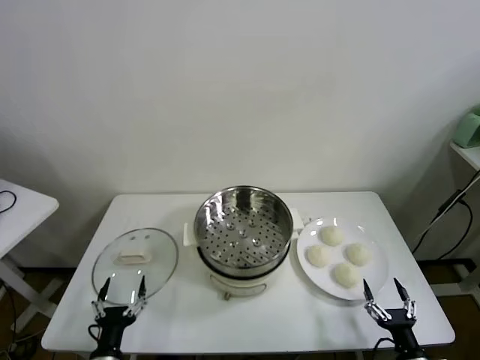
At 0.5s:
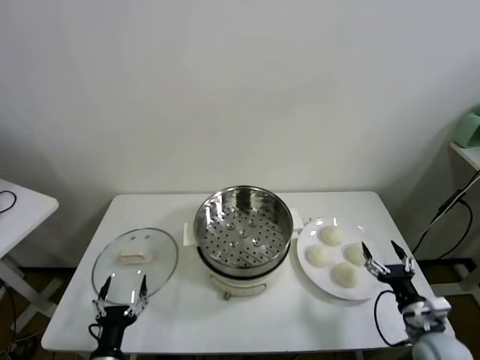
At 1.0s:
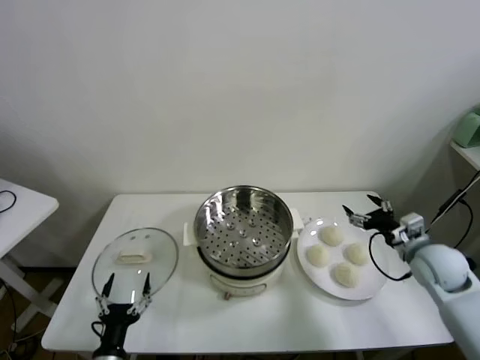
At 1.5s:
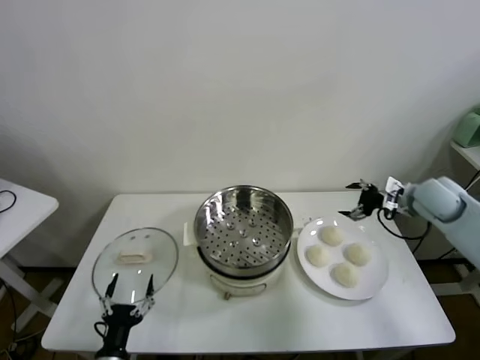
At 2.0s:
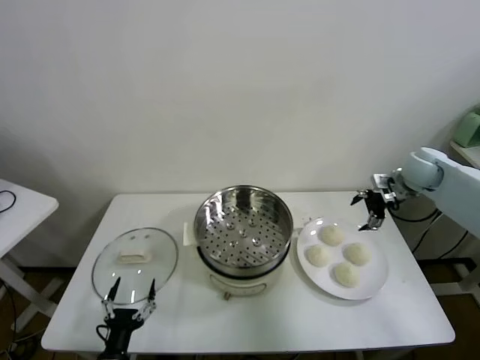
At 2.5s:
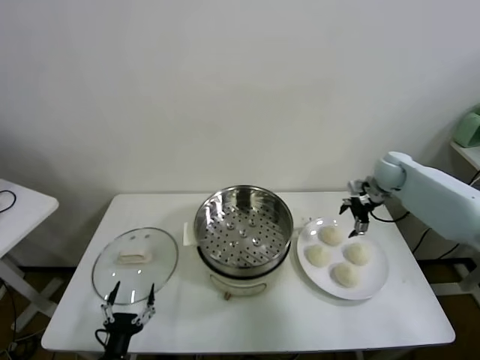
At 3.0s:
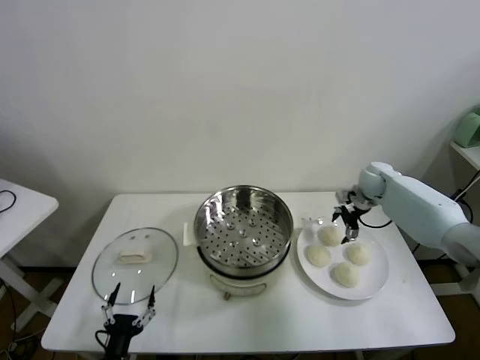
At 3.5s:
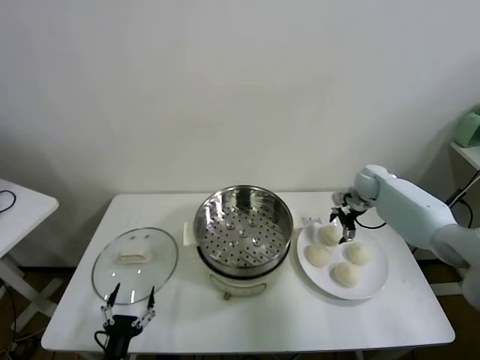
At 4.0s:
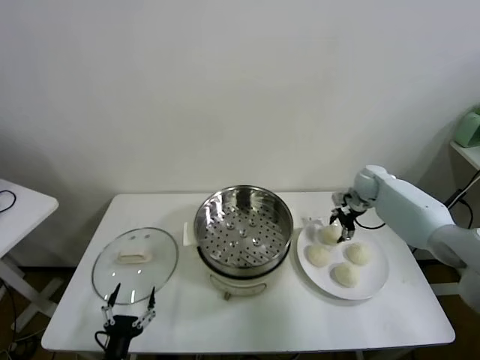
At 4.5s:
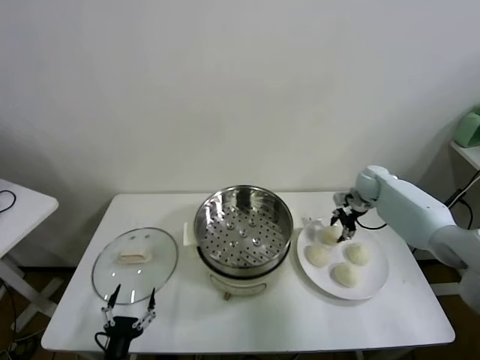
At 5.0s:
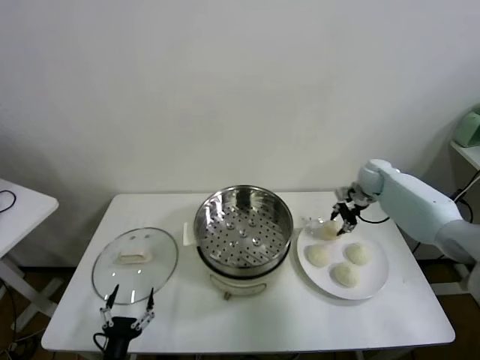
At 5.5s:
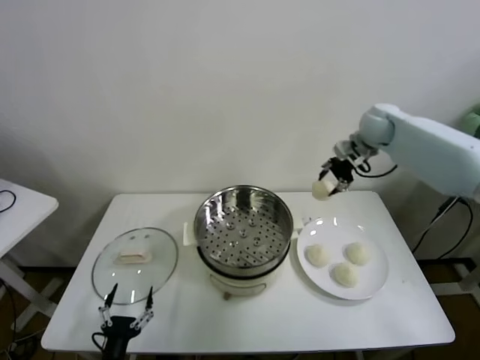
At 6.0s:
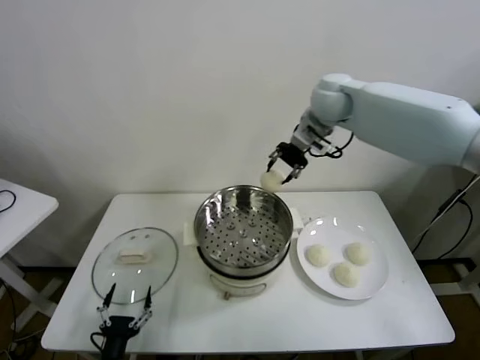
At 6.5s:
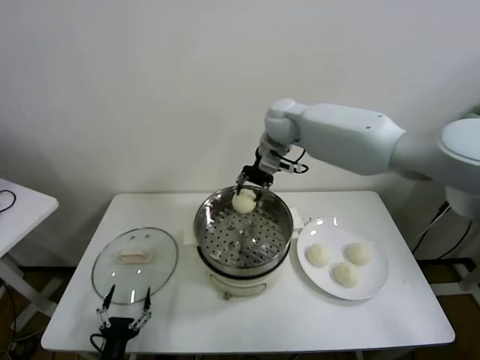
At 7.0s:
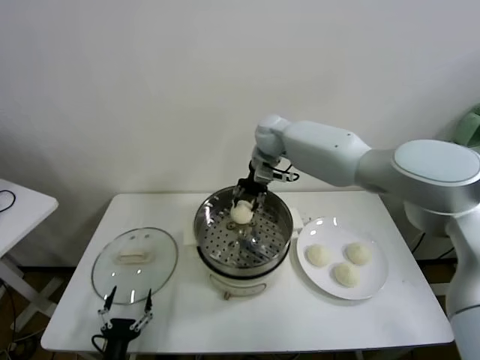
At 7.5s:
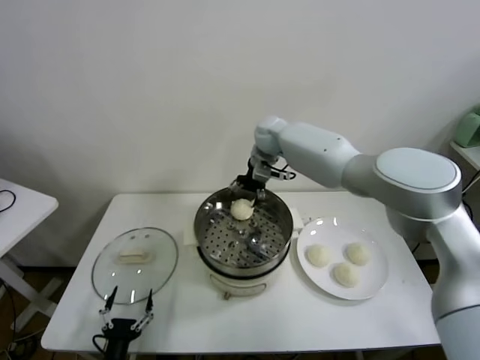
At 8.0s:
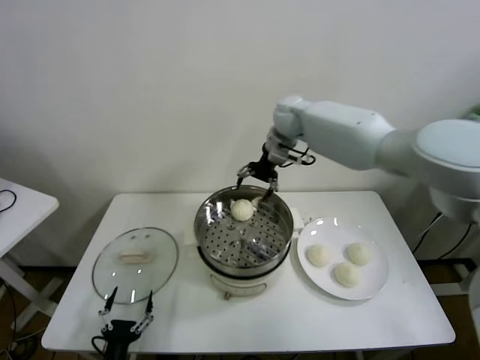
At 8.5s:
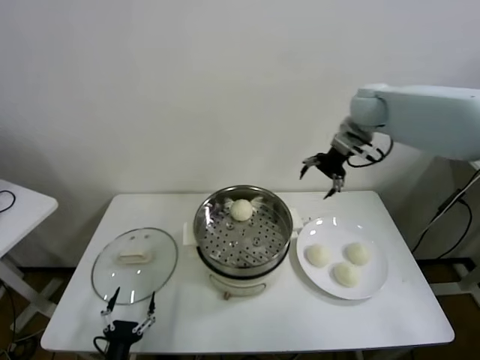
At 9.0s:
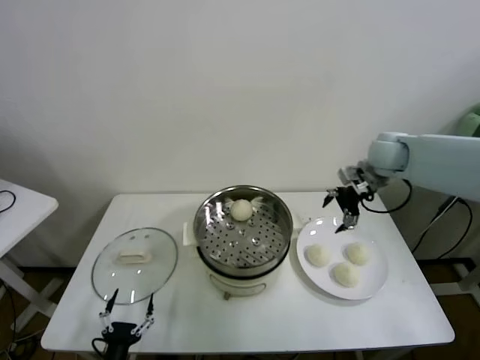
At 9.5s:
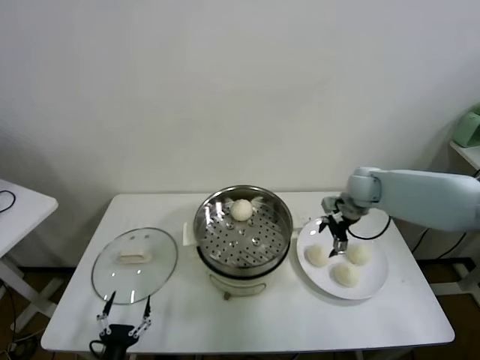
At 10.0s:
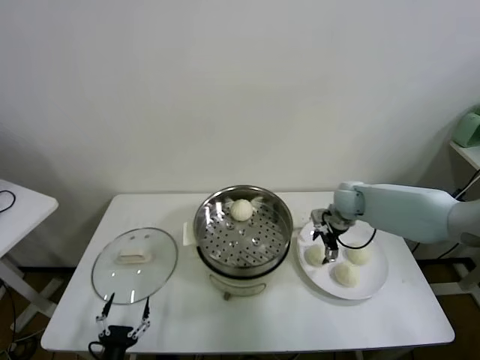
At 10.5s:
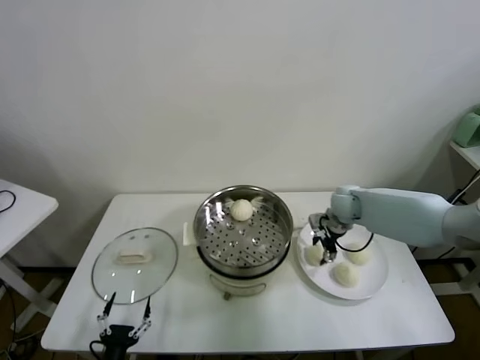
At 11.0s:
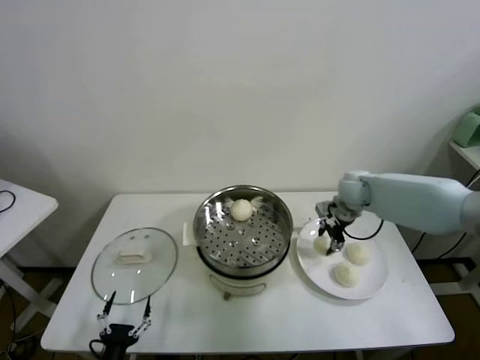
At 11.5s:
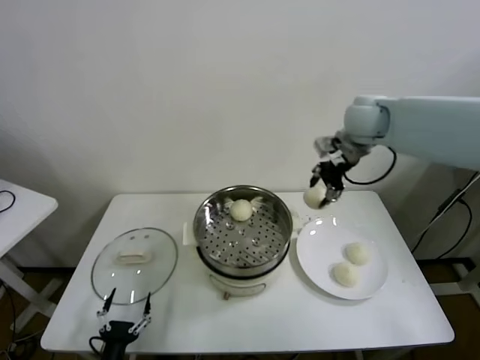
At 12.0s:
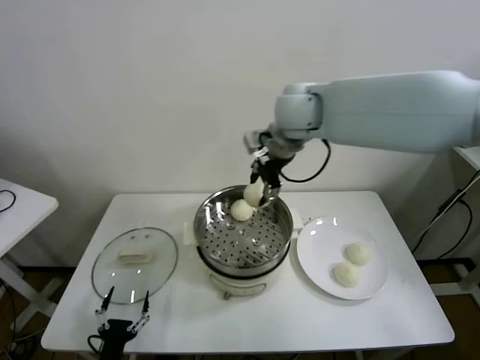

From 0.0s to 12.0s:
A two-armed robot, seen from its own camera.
Task of the whole recording: take steamed baozi put them in steamer.
Step, from 0.0s to 4.5s: Grasp the baozi in the plate with right gripper.
Step, from 5.0s to 7.5s: Place the baozi on the steamer with right gripper.
Step, from 8.0s to 10.5s: Grasp the baozi in the plate with right gripper.
From 2.0s to 4.0s: The right gripper goes roughly 15 cm downward, forward and to the left, and closes.
From 4.0s to 6.0s: The right gripper is displaced upward and to the left by approximately 35 cm, and closes its fingers.
From 6.0s to 8.0s: The right gripper travels forward by approximately 5 cm, and opens.
From 8.0s to 10.0s: The right gripper travels downward, to the right and backward by roughly 25 cm.
From 10.0s to 12.0s: The right gripper heads upward and to the left, covering approximately 35 cm, and closes its fingers.

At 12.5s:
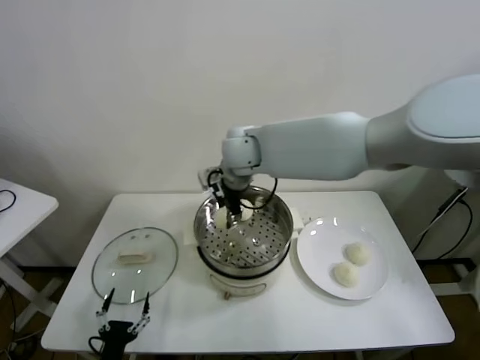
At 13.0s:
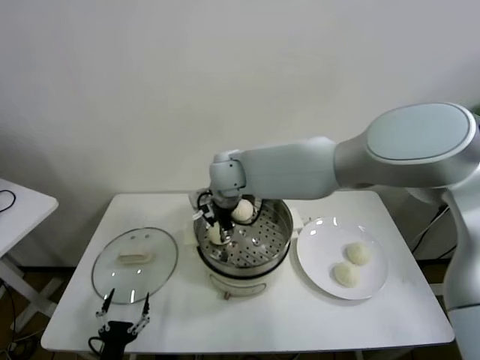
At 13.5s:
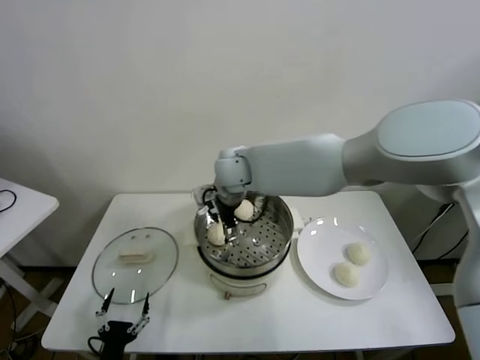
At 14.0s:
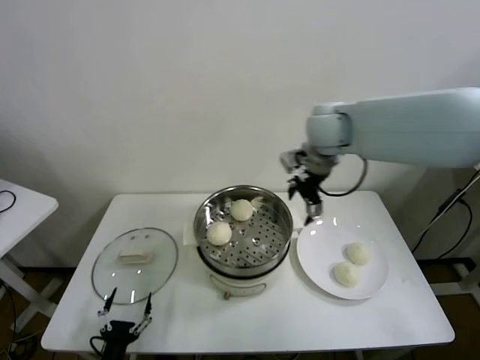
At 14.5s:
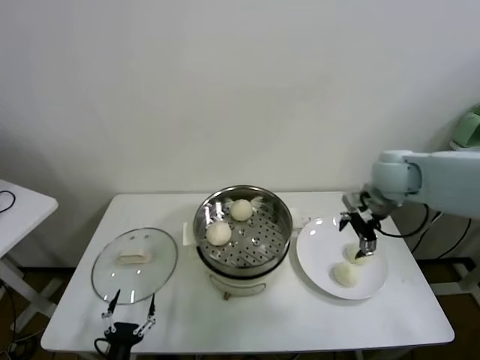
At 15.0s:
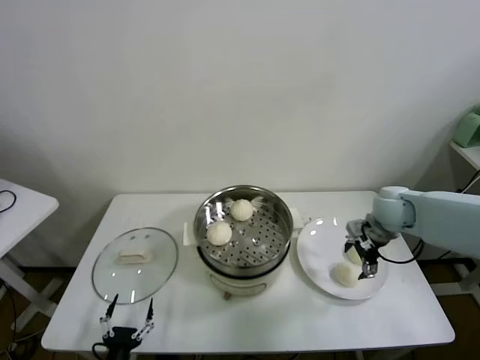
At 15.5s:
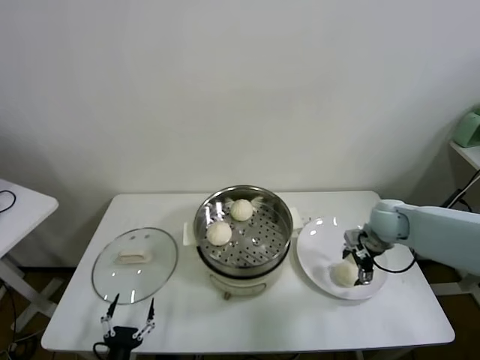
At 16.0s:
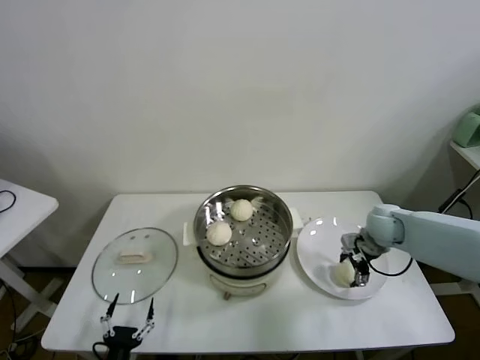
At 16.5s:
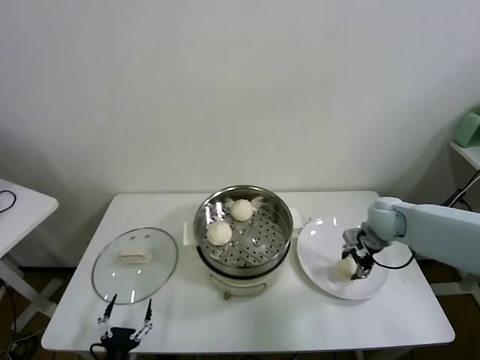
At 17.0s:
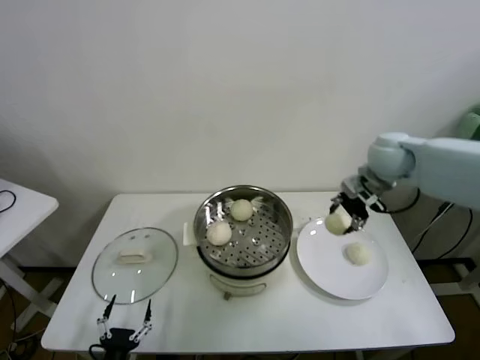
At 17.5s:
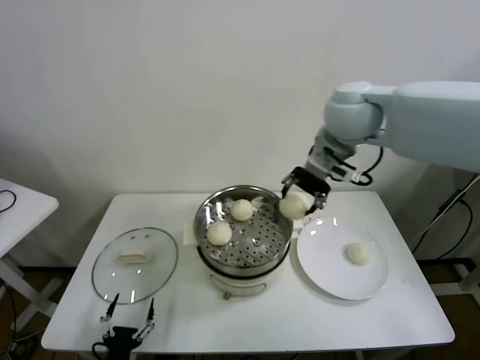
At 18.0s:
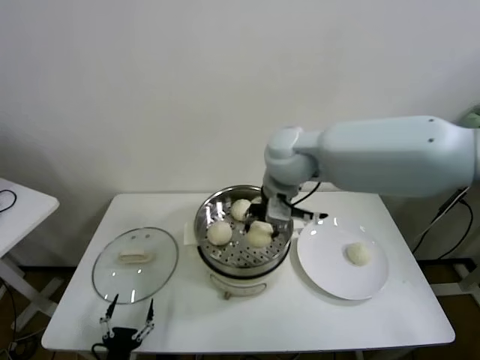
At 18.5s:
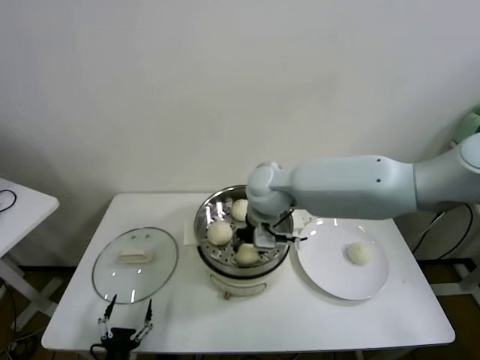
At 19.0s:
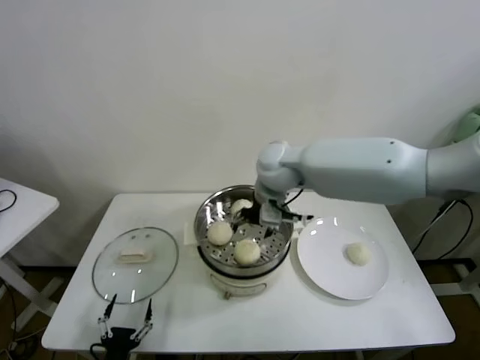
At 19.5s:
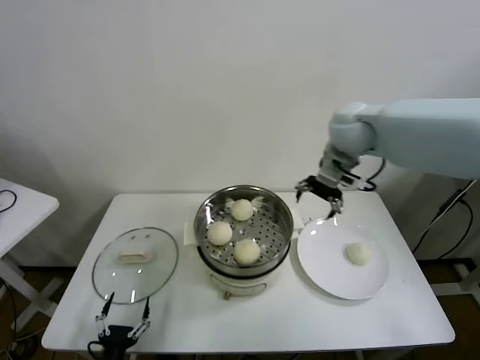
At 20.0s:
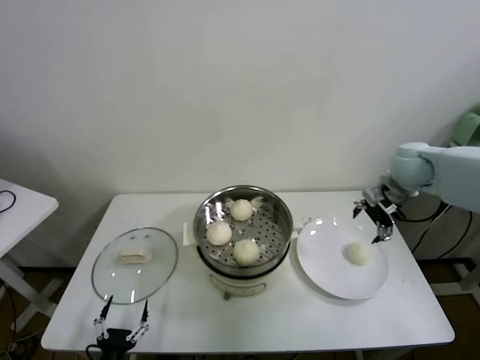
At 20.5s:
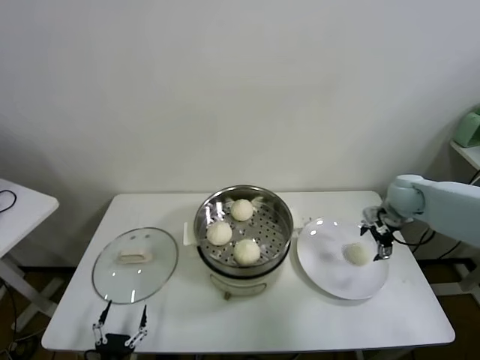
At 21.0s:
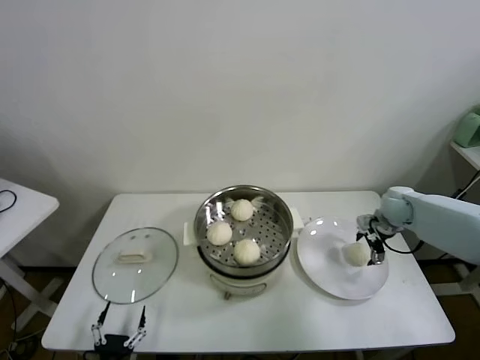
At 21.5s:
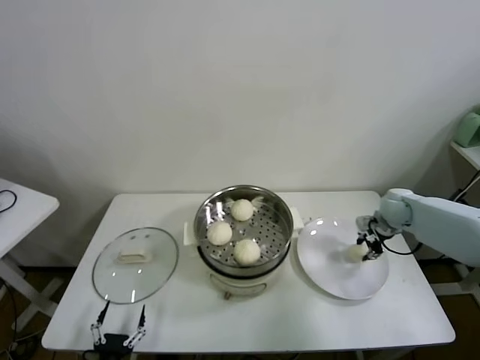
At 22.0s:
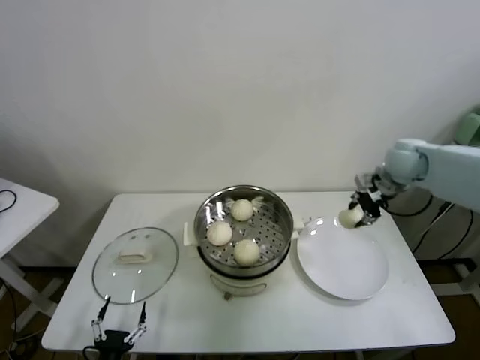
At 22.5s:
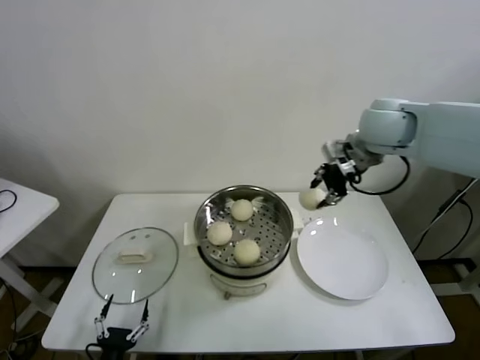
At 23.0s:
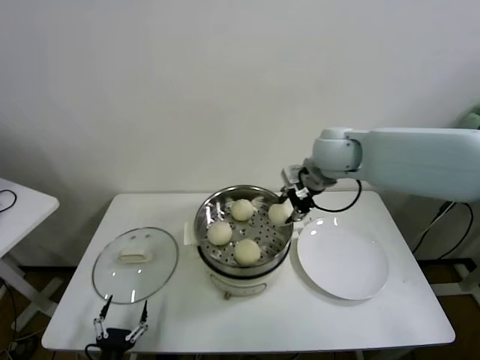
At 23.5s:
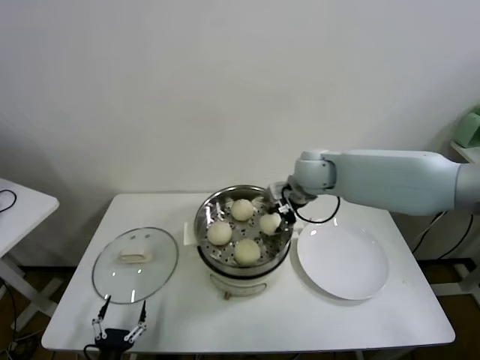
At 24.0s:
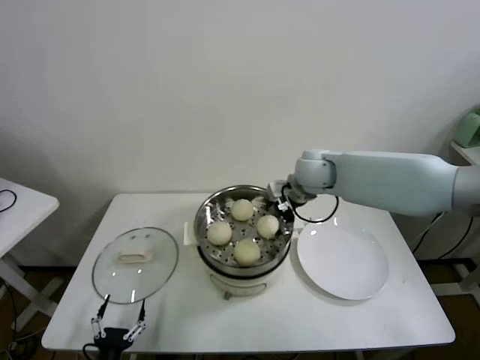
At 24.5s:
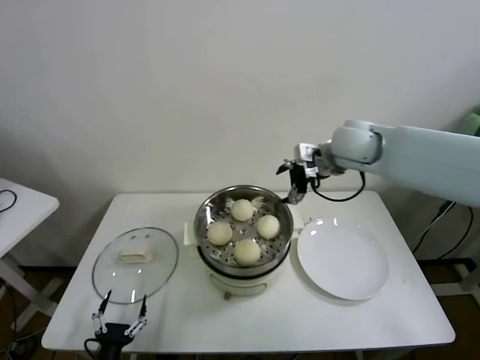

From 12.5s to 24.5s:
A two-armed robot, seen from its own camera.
Task of the whole recording: take steamed baozi put them in steamer.
Step, from 13.5s to 16.0s: Grasp the baozi in the plate with right gripper.
Step, from 16.5s to 18.5s: Place the baozi on the steamer with right gripper.
Step, from 19.0s to 21.0s: Grasp the baozi in the plate with right gripper.
Step, from 21.5s to 23.5s: Place the baozi on the steamer with right gripper.
From 12.5s to 14.5s: The right gripper is displaced to the right by about 35 cm, and opens up.
From 14.5s to 16.5s: The right gripper shifts roughly 15 cm downward, and closes up.
From 16.5s to 18.5s: The right gripper shifts about 30 cm to the left.
From 18.5s to 20.5s: The right gripper goes about 35 cm to the right, and opens.
From 20.5s to 22.5s: The right gripper moves upward and to the left, approximately 25 cm, and closes up.
From 22.5s to 24.5s: The right gripper is displaced downward by roughly 5 cm, and opens up.

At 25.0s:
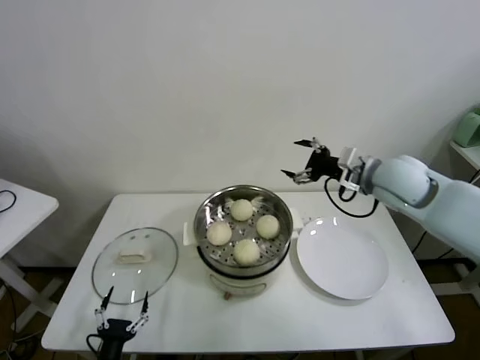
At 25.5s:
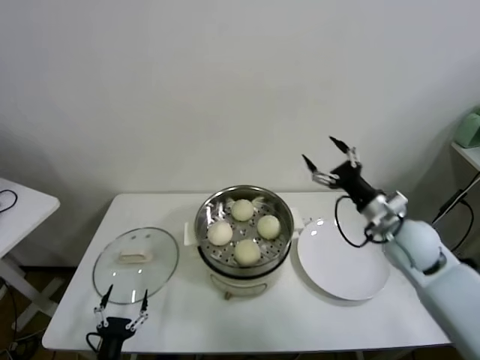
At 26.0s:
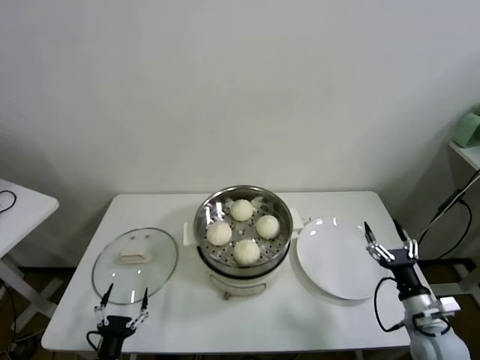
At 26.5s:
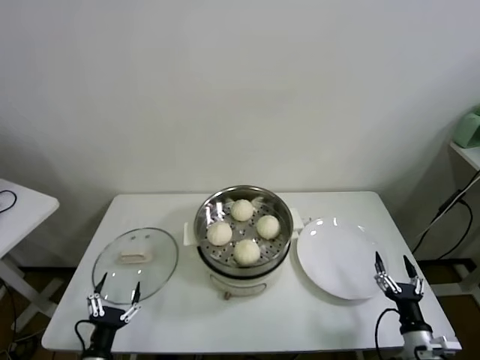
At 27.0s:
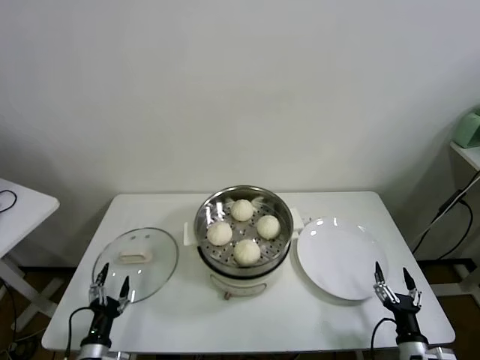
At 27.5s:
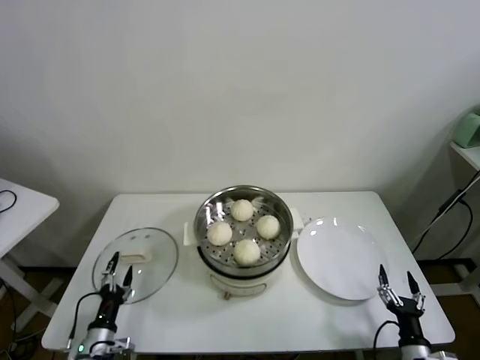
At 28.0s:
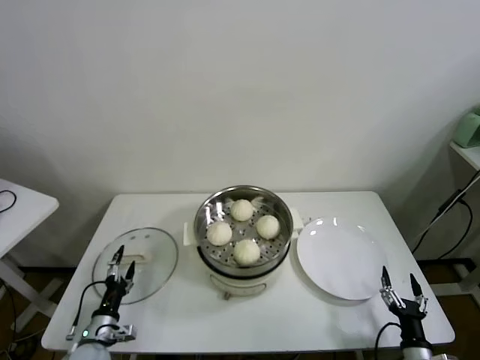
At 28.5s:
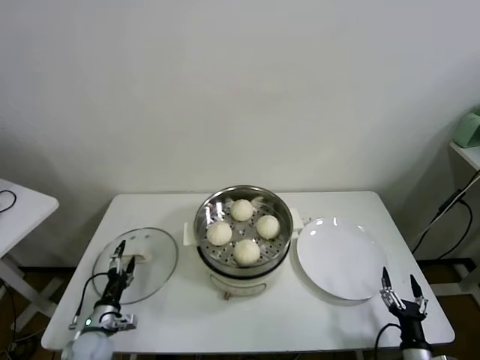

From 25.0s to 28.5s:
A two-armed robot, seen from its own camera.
Task of the whole recording: take steamed baozi put them in steamer.
From 25.0s to 27.0s: The left gripper changes place by approximately 5 cm. The right gripper moves downward and backward, roughly 50 cm.
From 27.0s to 28.5s: The left gripper shifts about 10 cm forward.
